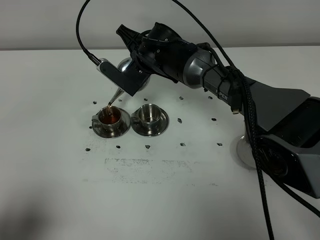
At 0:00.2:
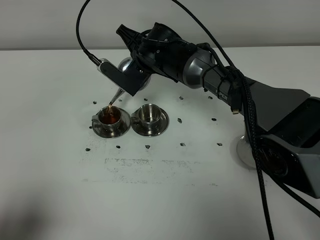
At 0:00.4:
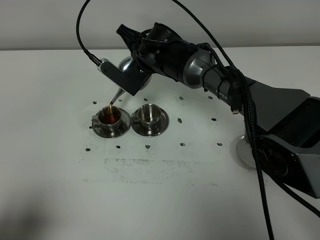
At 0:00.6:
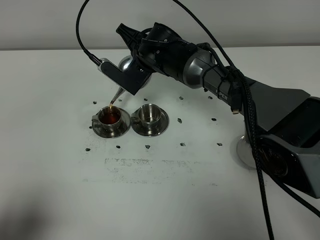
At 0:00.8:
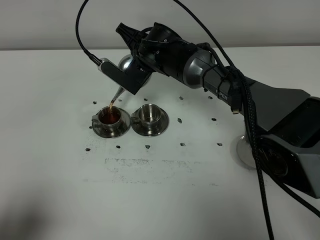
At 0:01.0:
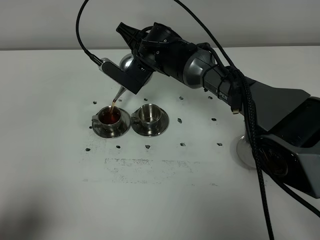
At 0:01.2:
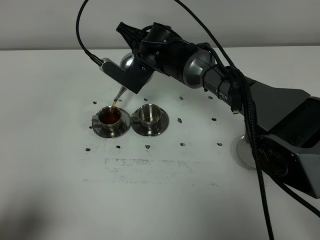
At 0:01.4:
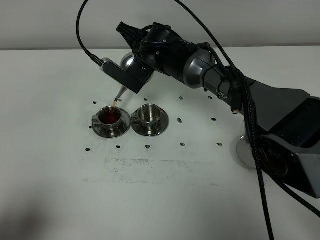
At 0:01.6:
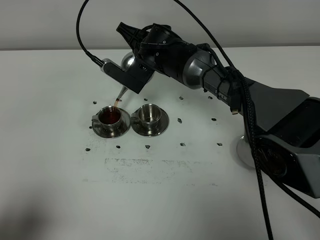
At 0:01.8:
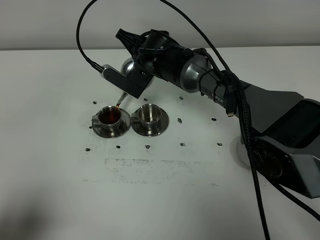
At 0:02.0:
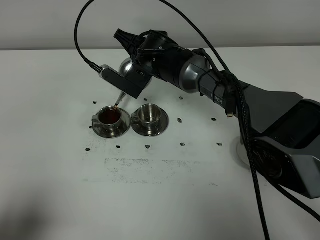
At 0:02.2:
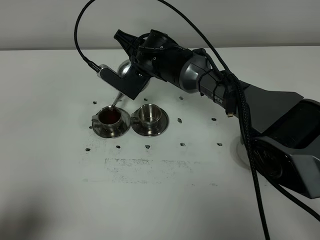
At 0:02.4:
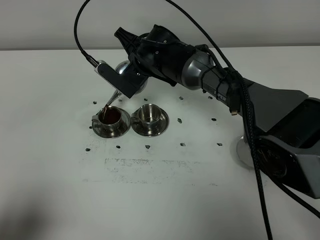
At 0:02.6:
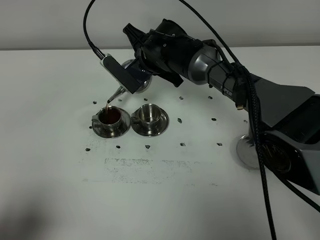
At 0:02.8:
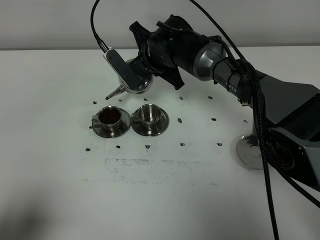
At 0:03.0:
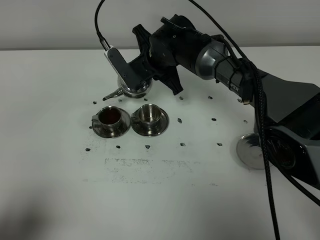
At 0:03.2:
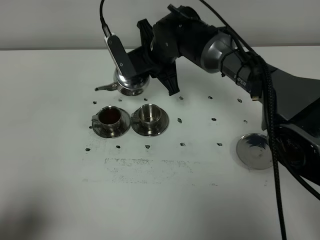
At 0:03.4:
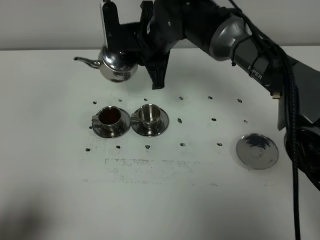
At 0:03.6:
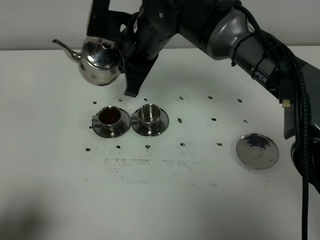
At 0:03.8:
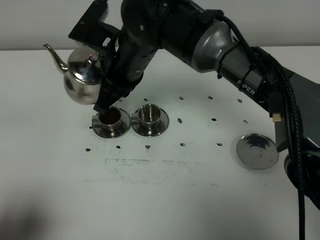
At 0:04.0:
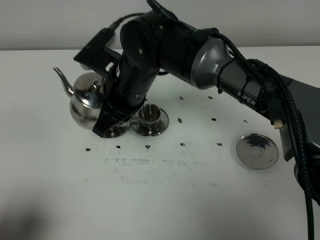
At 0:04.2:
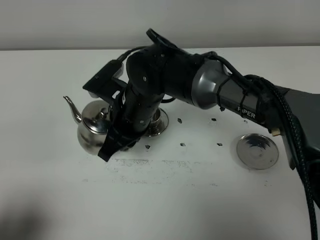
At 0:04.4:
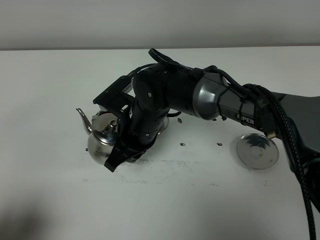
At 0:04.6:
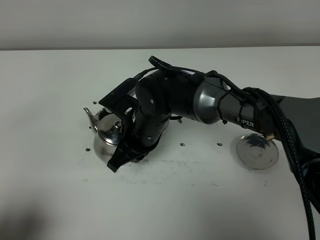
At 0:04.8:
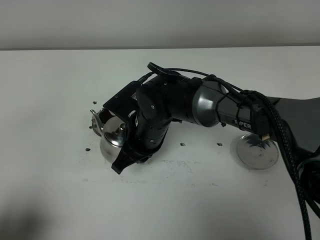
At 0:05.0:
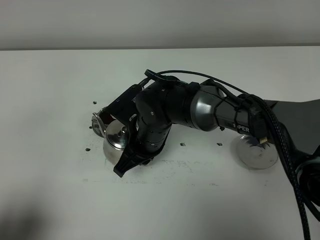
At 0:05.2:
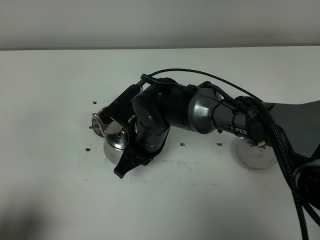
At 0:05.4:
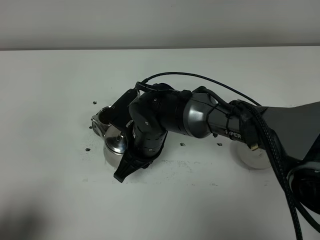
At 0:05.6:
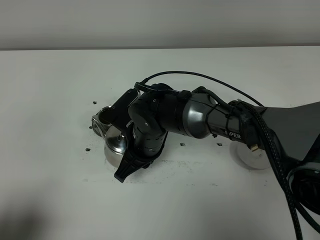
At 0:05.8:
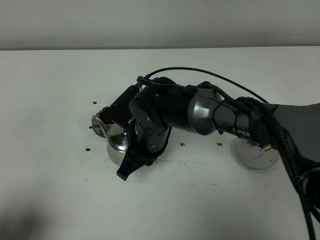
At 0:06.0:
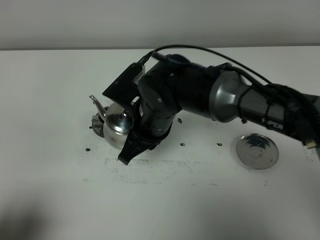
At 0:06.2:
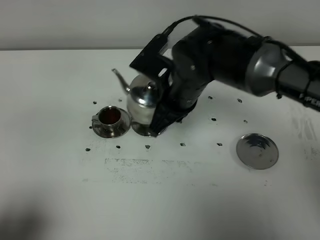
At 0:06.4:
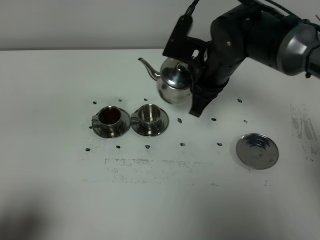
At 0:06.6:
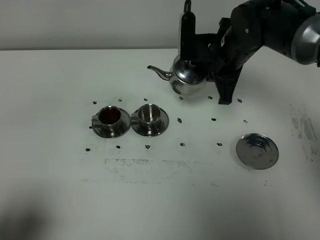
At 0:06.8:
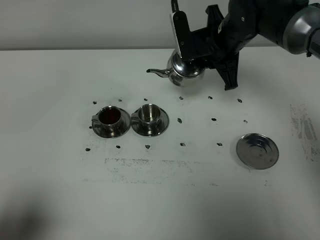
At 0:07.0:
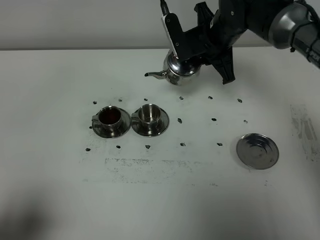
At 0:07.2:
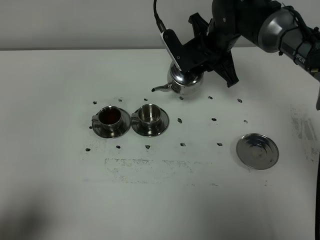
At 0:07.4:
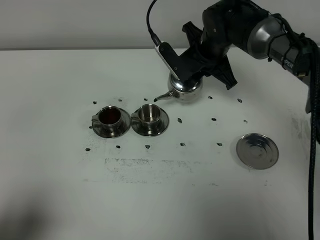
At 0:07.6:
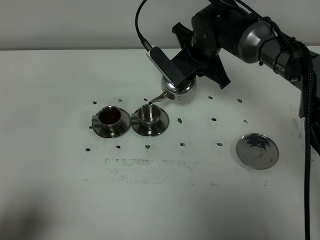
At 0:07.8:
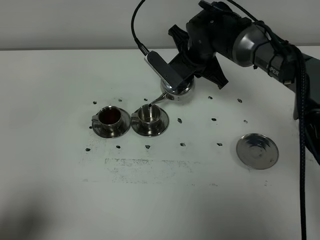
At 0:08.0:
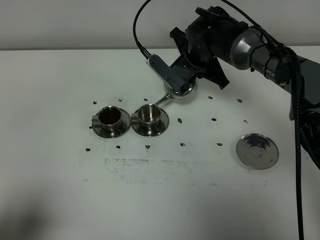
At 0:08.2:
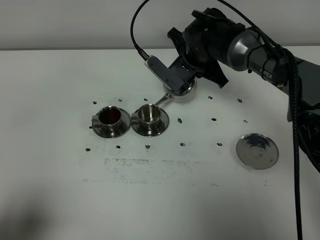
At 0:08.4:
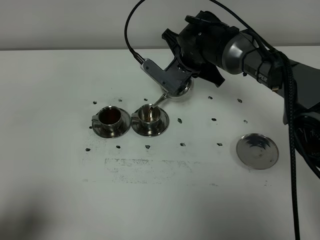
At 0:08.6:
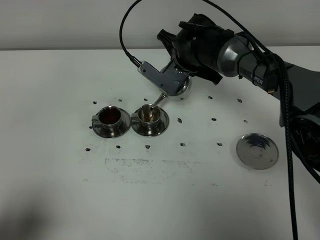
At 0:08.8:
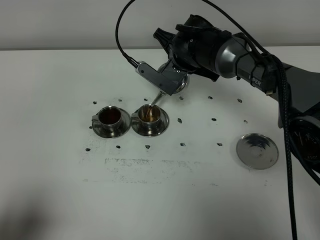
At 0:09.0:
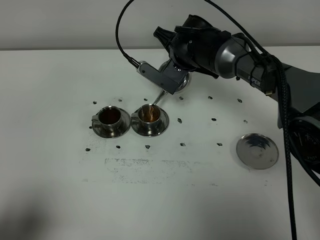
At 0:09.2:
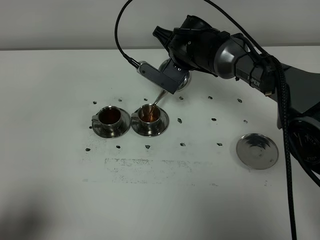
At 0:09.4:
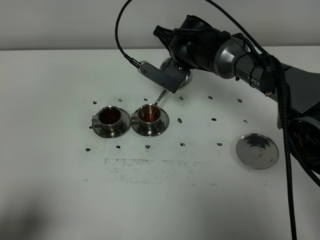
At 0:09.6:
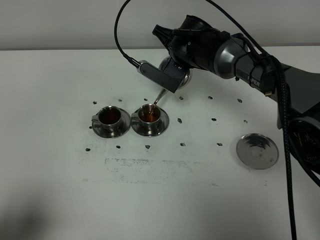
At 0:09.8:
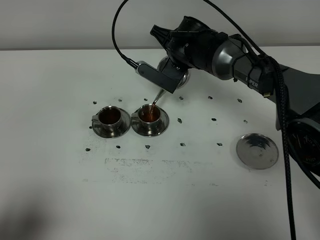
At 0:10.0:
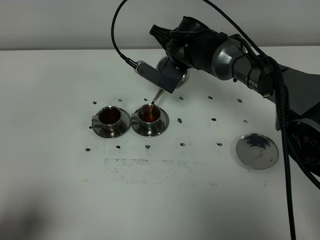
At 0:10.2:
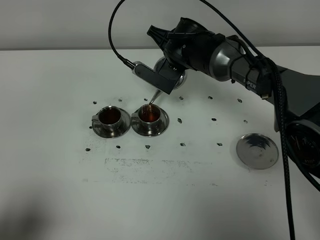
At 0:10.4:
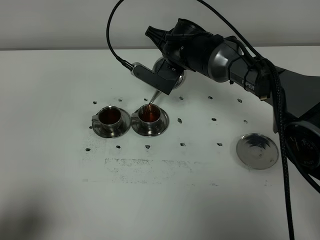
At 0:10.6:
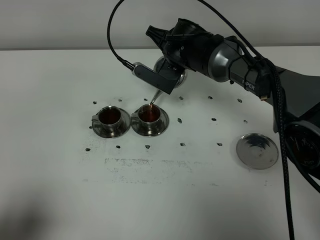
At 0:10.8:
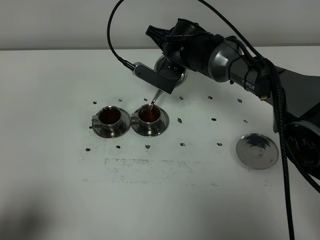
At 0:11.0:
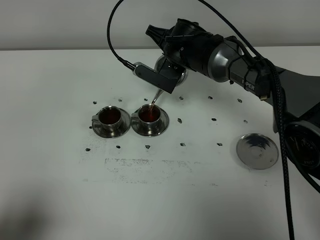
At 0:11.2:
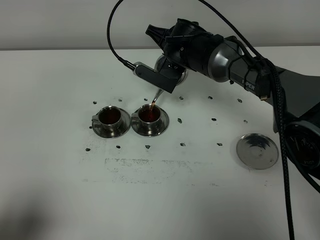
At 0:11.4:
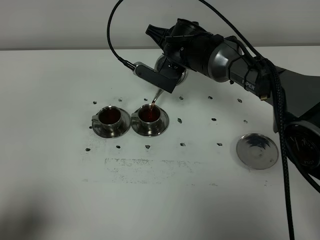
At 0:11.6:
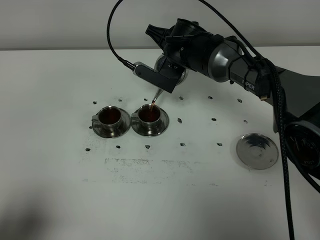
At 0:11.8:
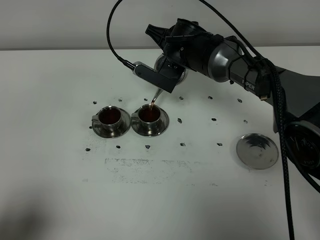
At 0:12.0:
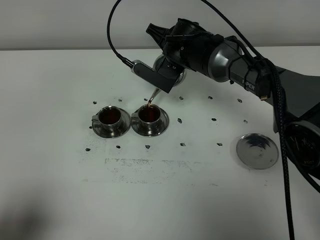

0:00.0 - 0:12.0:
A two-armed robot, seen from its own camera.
Task of the whole recording: grasp the stainless steel teapot and pour the tea into the two stainless steel teacups one by one, put the stainless steel teapot back in its original place.
Step, 0:00.0 - 0:02.6: Pour tea into the teacup with the right gripper.
0:00.0 - 0:01.6: The grippers stay close to where they were, moving slightly.
0:03.0 - 0:04.4: The right gripper shifts approximately 15 cm backward.
0:04.4 - 0:06.0: There are only small adjustments of the grippers.
0:06.0 - 0:07.6: The right gripper shifts some 20 cm forward and to the right.
0:09.0 - 0:10.4: The grippers move only a little.
0:10.4 - 0:12.0: Both grippers stay put.

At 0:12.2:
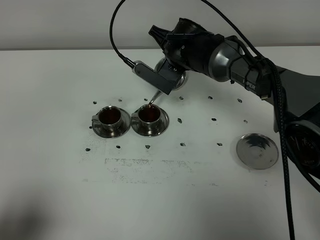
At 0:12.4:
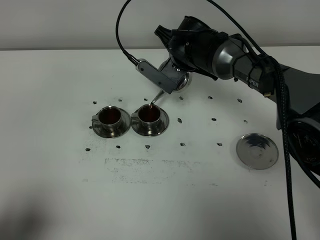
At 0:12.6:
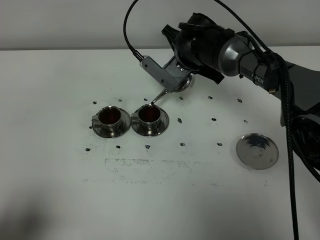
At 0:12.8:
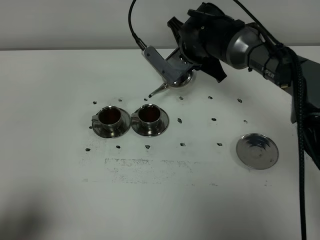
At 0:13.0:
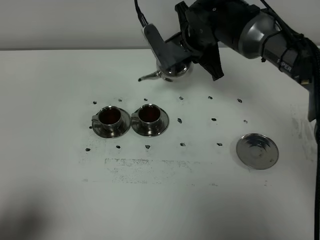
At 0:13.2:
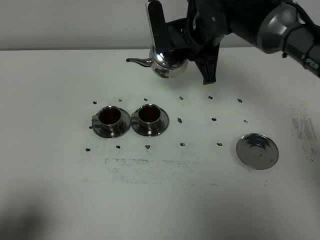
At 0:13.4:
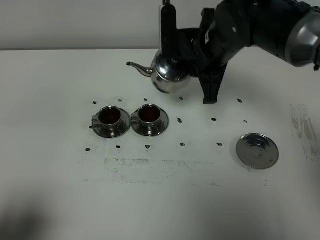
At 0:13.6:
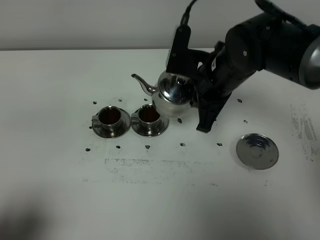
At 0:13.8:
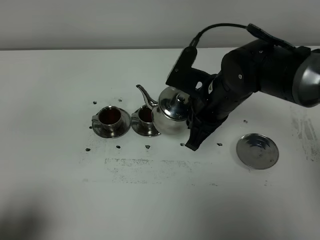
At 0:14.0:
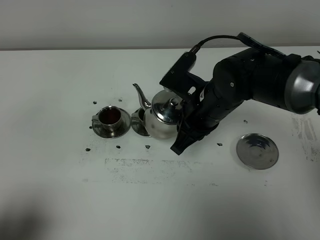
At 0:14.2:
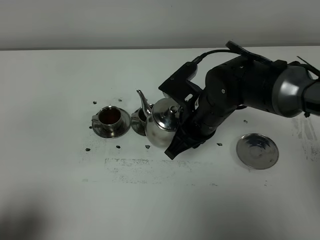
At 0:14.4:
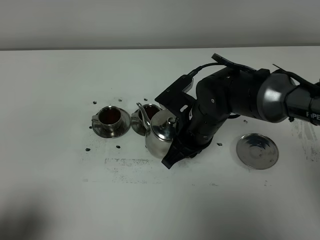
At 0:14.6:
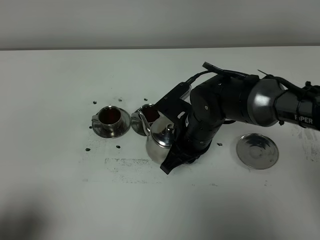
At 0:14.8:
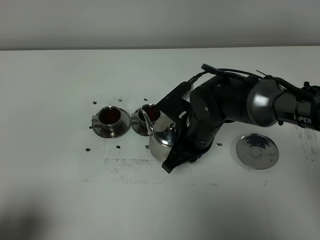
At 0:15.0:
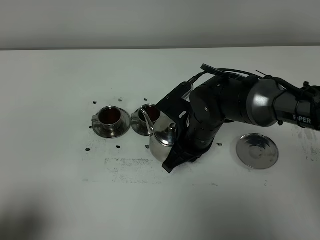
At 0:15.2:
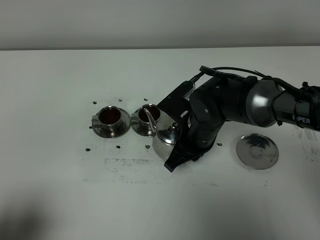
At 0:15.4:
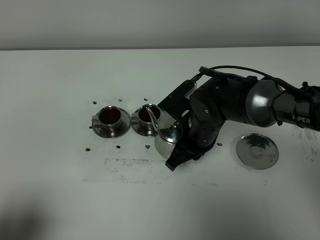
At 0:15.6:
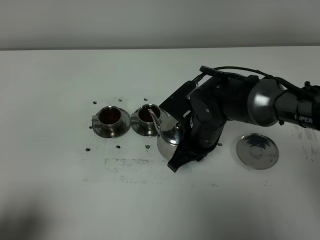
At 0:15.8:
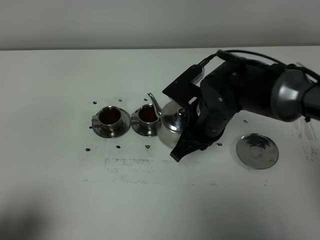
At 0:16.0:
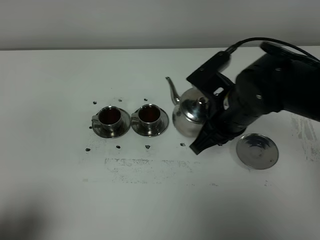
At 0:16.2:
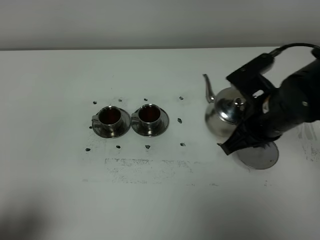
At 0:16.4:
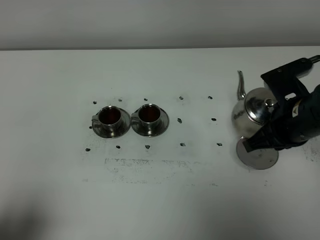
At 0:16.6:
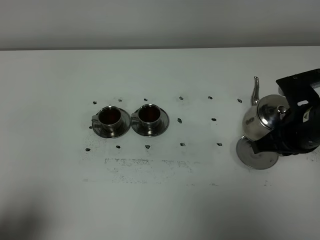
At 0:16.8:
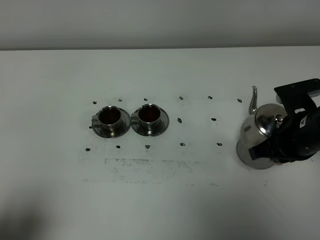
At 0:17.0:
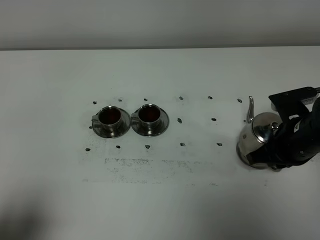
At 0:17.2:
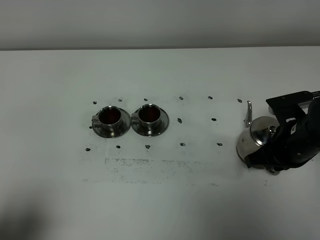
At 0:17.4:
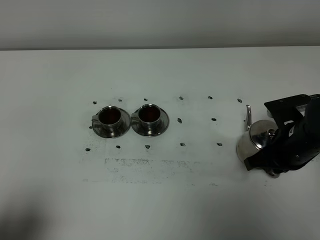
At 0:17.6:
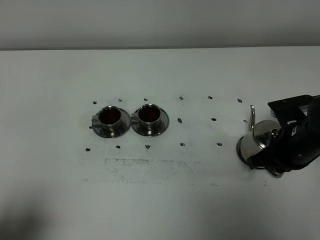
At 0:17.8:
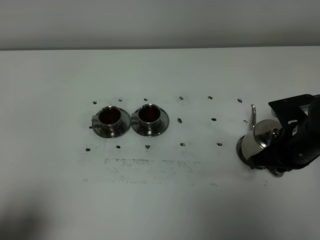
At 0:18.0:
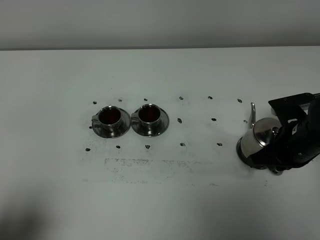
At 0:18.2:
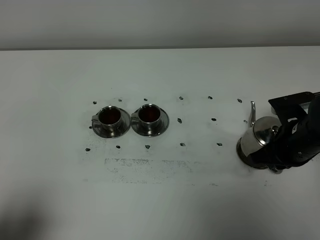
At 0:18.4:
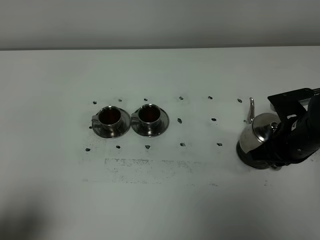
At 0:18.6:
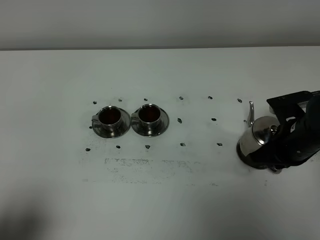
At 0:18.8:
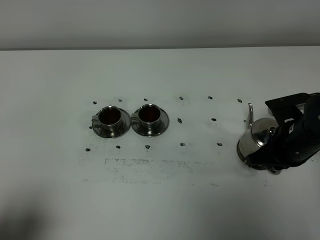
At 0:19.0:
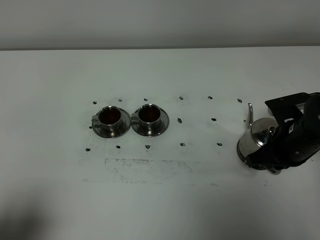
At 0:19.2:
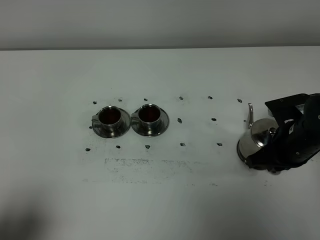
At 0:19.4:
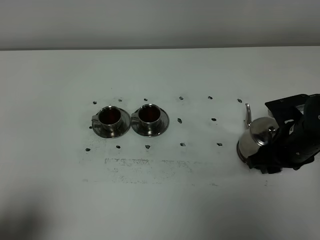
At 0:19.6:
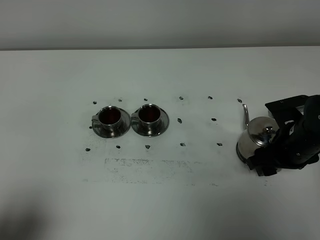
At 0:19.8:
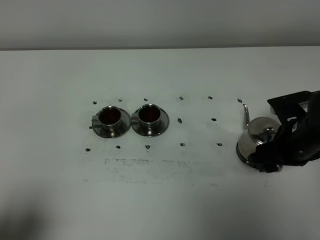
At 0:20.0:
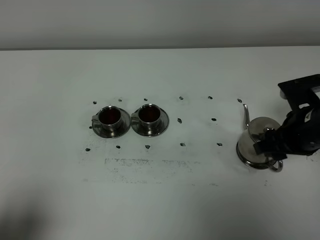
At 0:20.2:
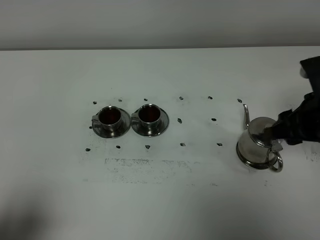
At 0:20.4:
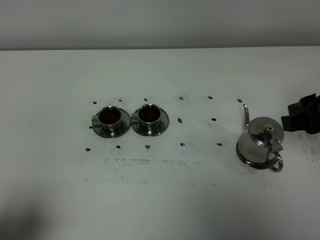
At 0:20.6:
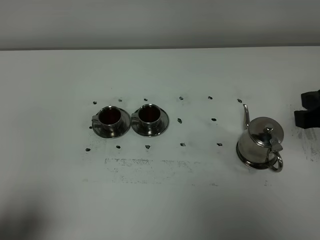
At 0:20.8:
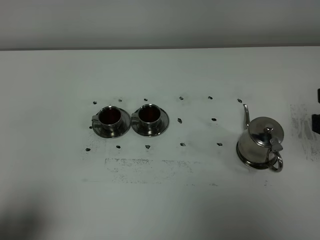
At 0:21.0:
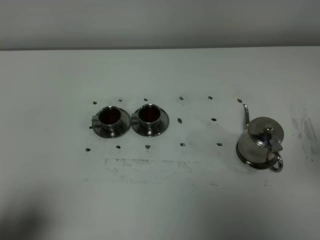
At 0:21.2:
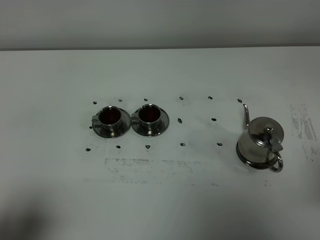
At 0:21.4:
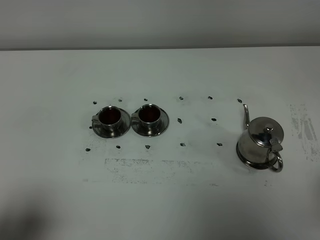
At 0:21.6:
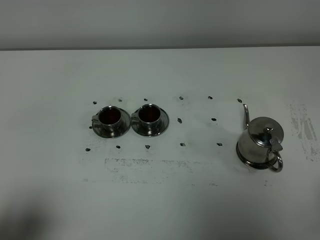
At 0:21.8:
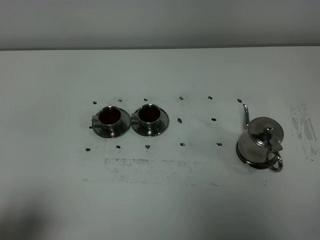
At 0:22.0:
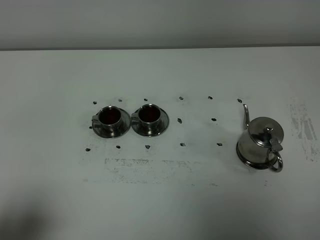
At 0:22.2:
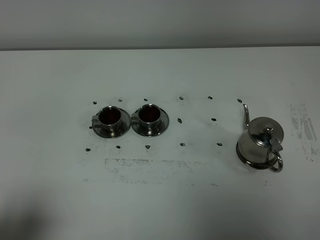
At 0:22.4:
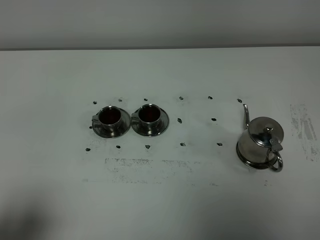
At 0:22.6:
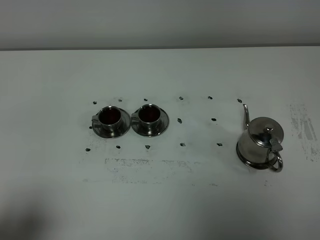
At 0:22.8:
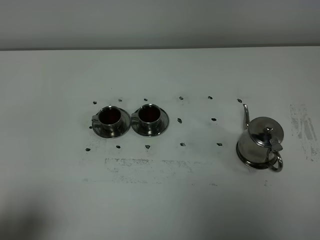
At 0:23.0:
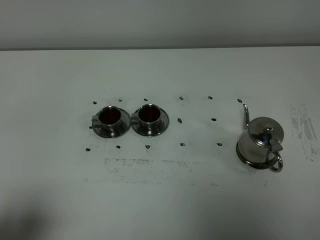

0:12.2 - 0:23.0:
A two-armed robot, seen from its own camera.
Task of the whole recording: grasp the stainless steel teapot and pour the tea into the two stainless steel teacups one by one, put the stainless steel teapot back in its original place.
0:12.2 - 0:13.8: The right gripper moves backward, some 15 cm.
0:13.8 - 0:15.2: The right gripper goes about 5 cm downward.
0:15.2 - 0:16.8: The right gripper goes about 15 cm to the right.
0:16.8 - 0:18.4: There are only small adjustments of the grippers.
0:18.4 - 0:20.0: The right gripper changes place by some 5 cm, and opens.
0:20.0 - 0:21.4: The right gripper travels backward by about 20 cm, and closes up.
